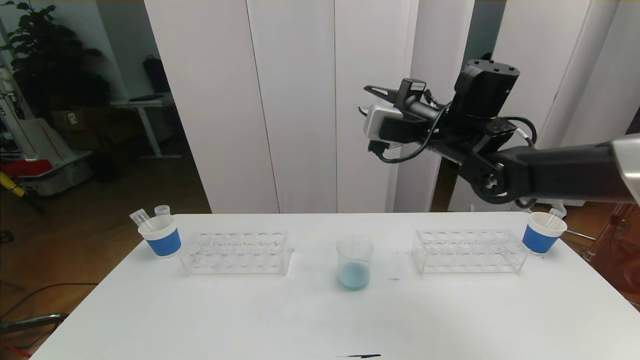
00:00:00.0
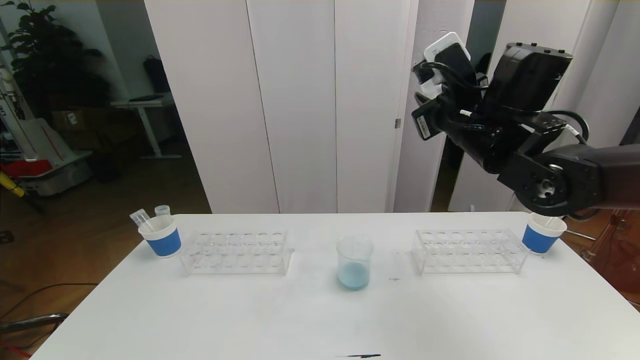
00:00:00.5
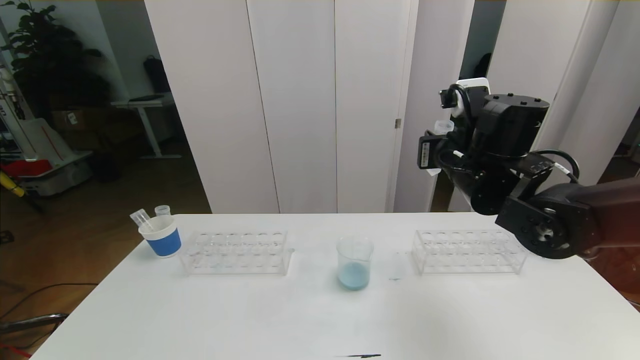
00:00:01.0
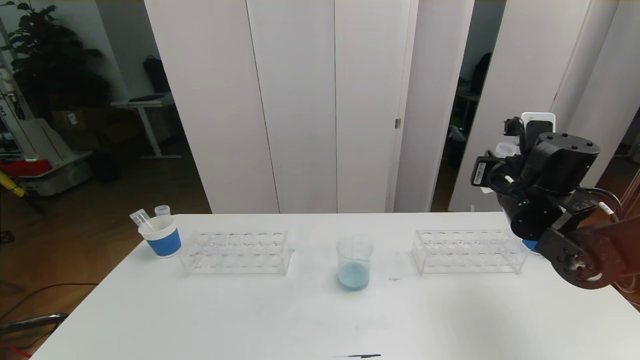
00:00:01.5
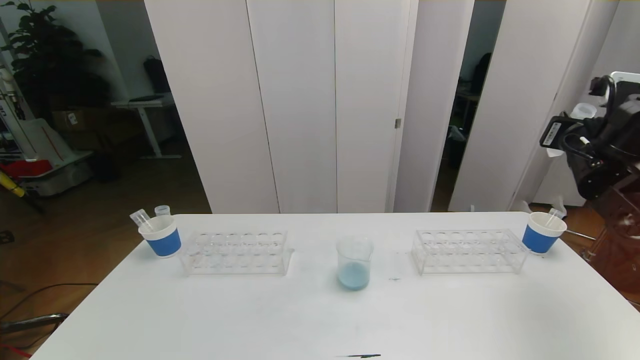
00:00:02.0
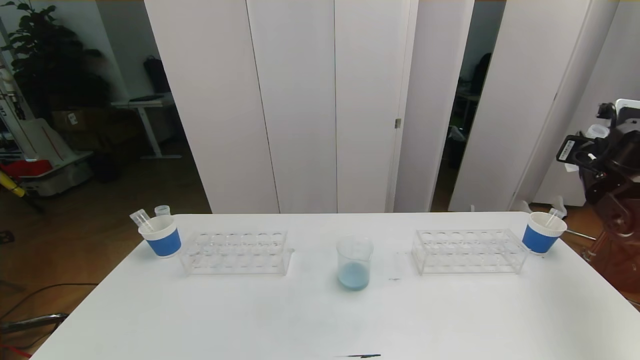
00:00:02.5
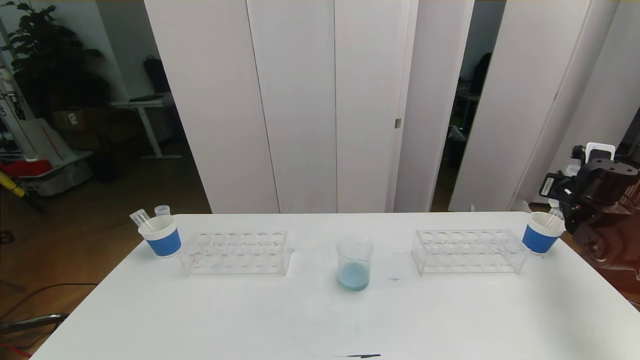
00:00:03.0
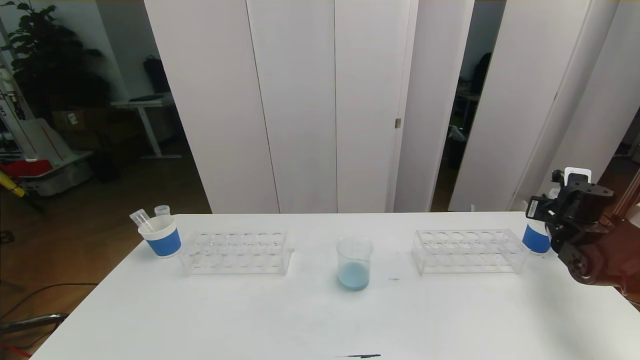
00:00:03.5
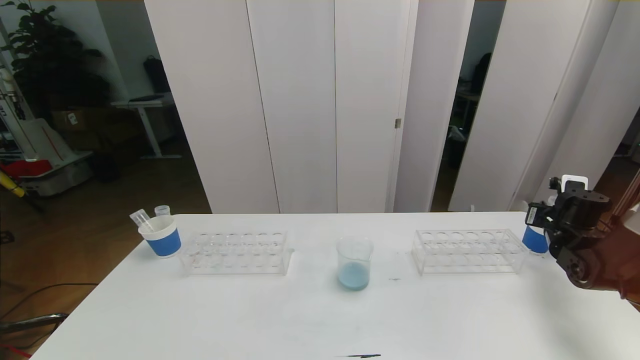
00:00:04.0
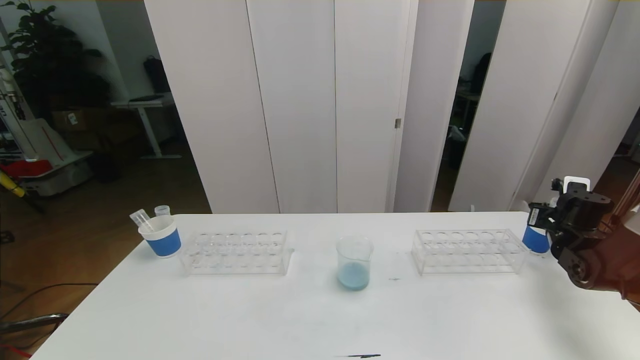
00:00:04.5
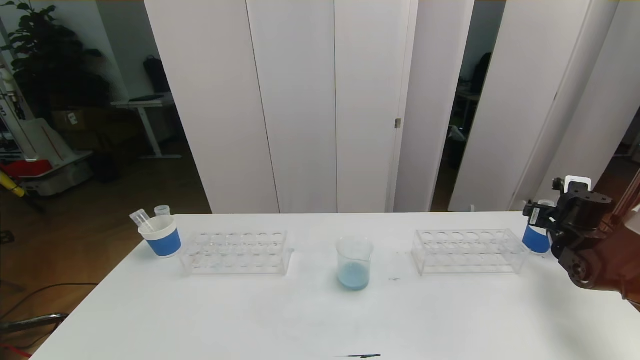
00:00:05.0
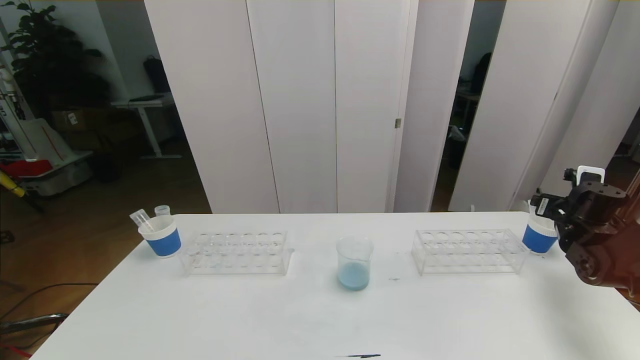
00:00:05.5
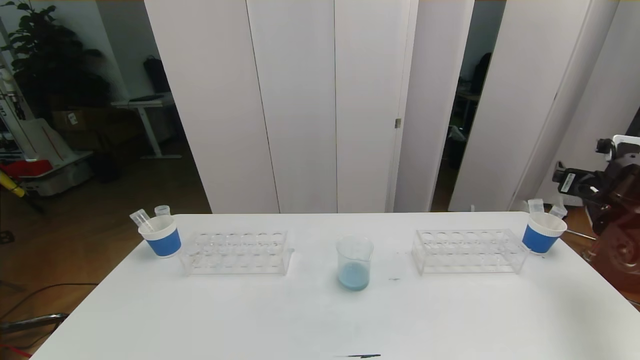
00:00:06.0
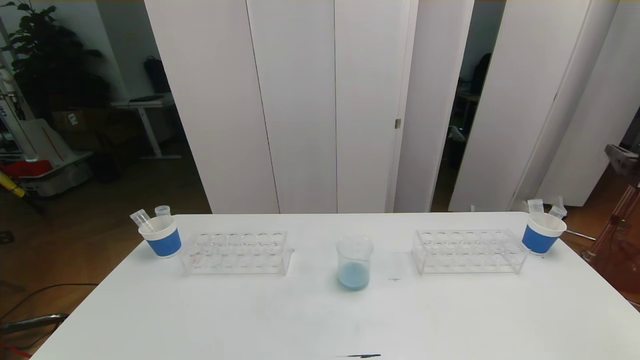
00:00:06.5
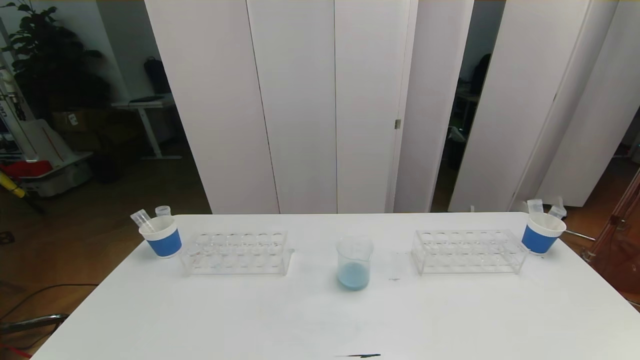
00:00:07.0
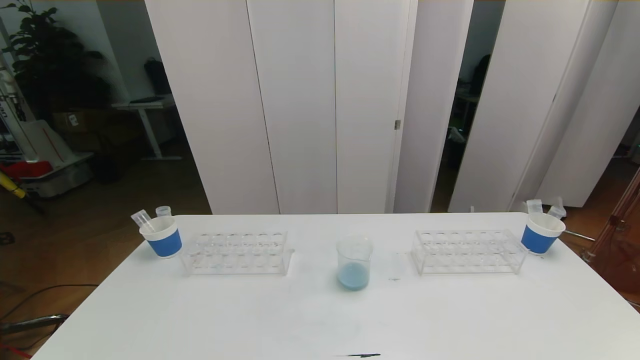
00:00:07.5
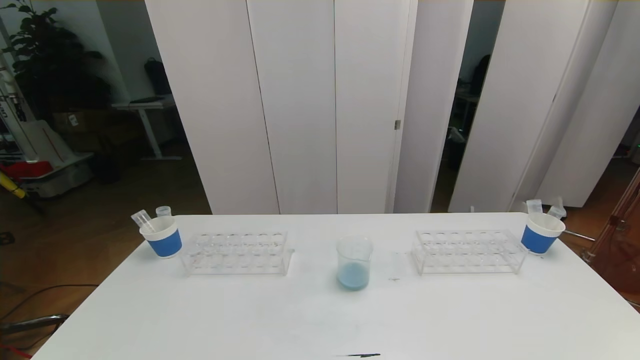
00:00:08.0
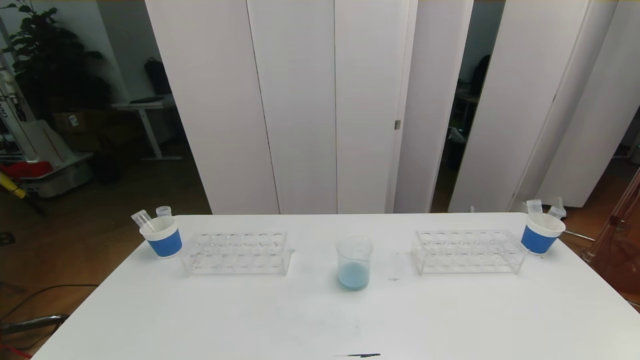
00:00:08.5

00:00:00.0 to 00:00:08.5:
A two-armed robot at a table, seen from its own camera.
Task of the whole recording: pick up the test tube with red pigment the test tube with blue pigment and the test tube with white pigment by grippers and pour them into the beaker.
00:00:00.0 to 00:00:02.0: The right gripper is displaced to the right by approximately 20 cm.
00:00:02.0 to 00:00:04.0: The right gripper goes roughly 20 cm downward.
00:00:04.0 to 00:00:06.5: The right gripper heads upward and backward, covering about 25 cm, and opens.
